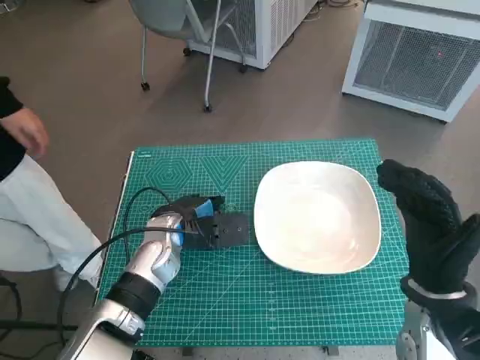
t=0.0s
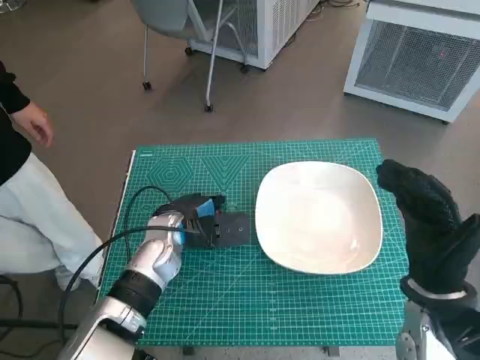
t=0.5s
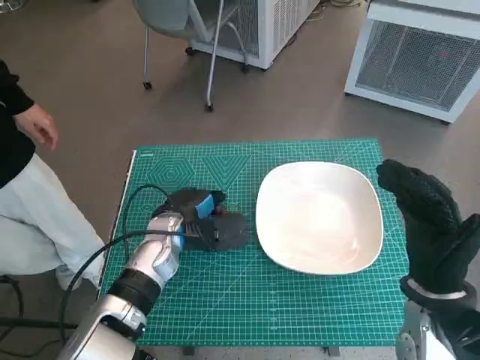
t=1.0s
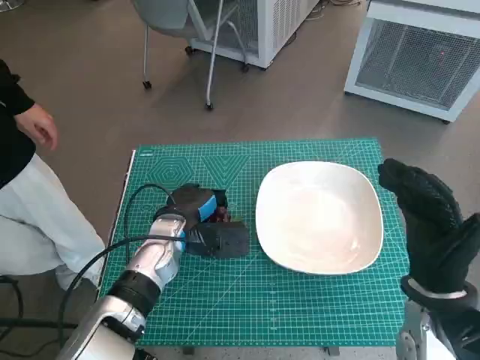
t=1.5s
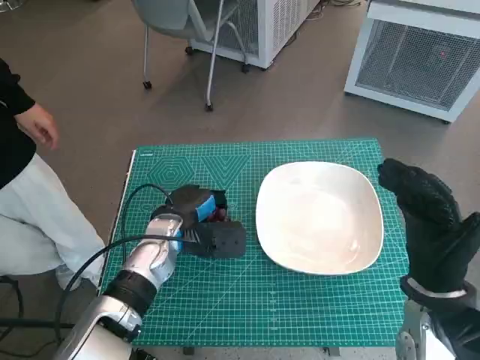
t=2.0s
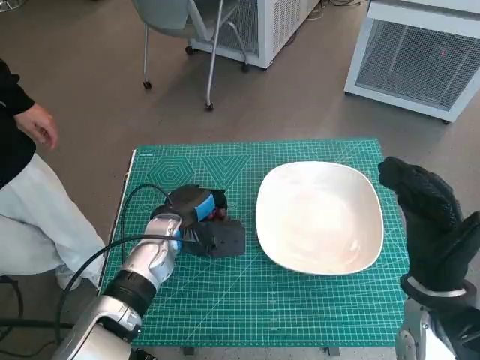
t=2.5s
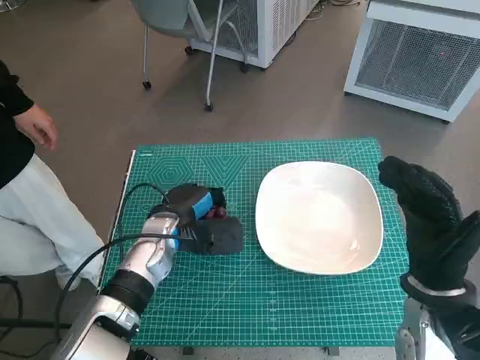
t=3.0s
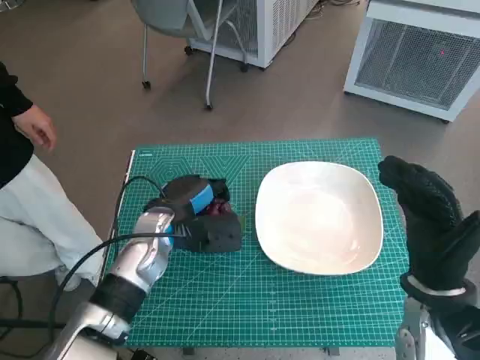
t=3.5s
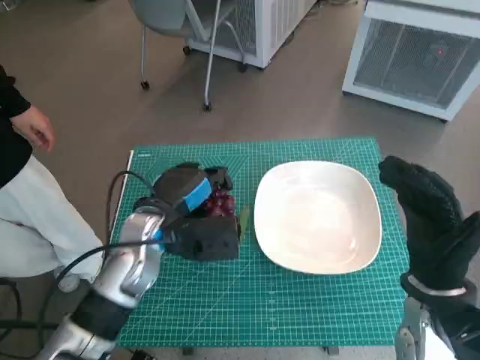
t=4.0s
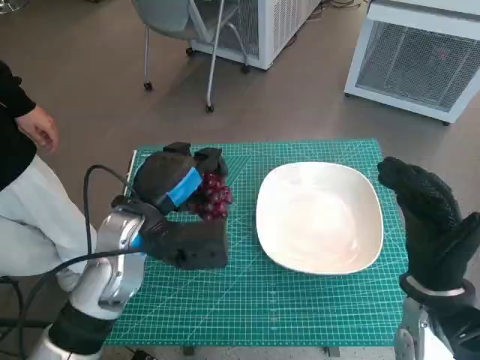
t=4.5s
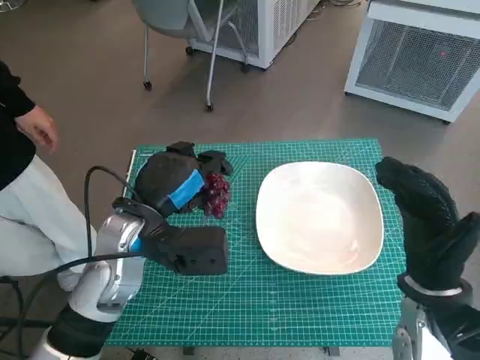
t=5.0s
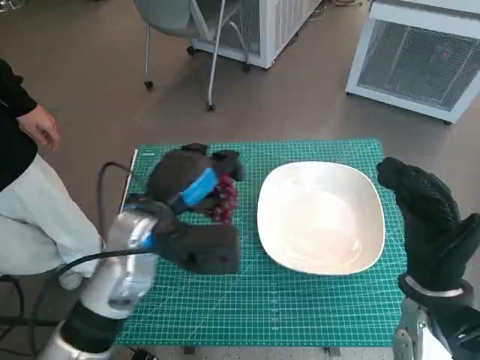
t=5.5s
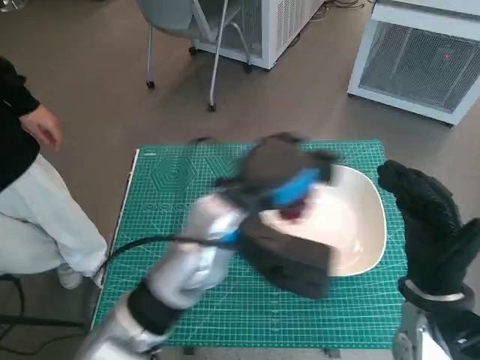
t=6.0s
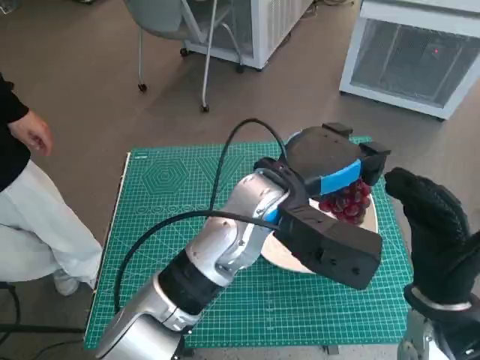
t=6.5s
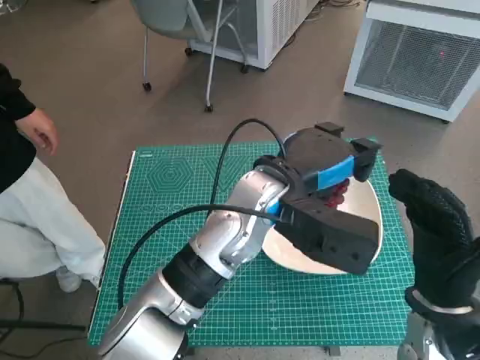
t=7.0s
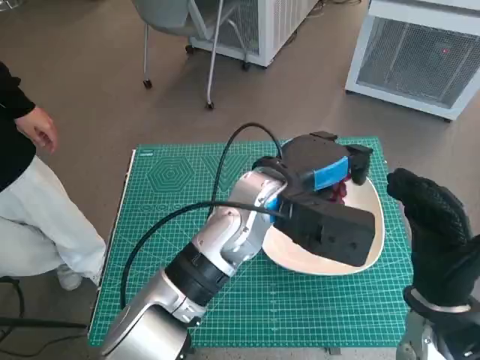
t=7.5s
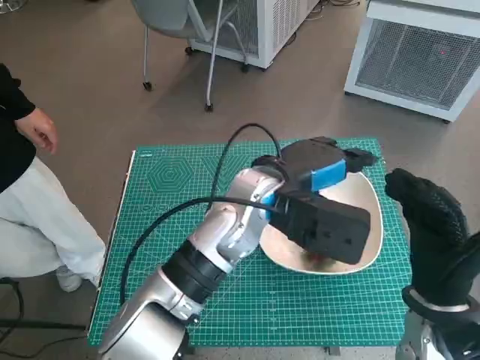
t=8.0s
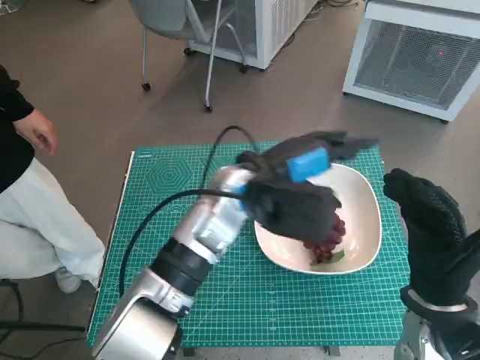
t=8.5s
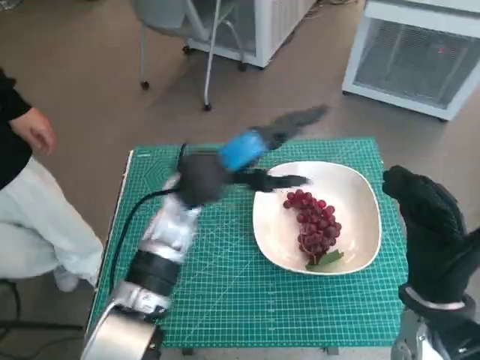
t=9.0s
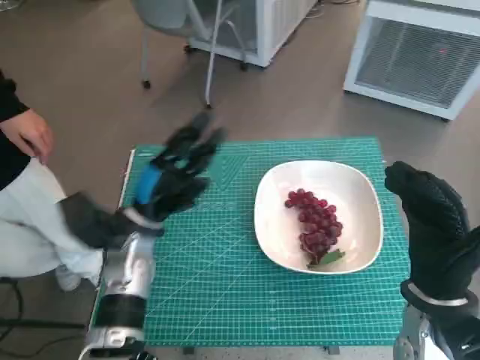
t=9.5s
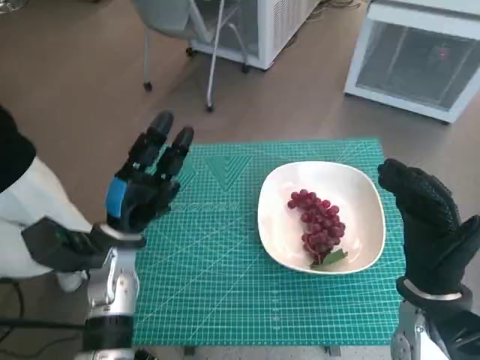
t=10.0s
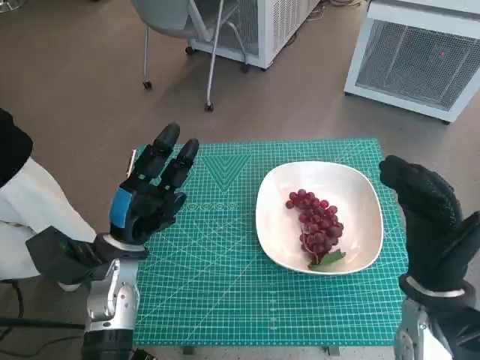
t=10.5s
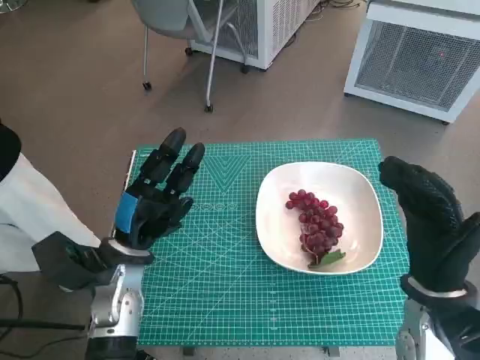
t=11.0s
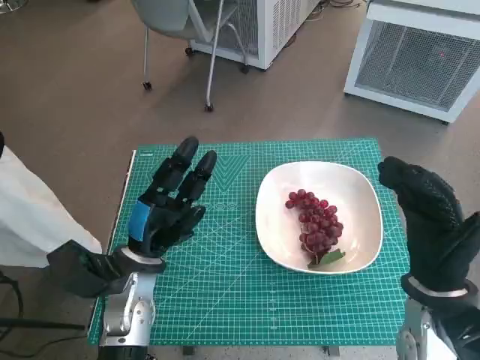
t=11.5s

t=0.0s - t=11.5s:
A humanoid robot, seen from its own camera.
Task of the whole recording: Pick up the grapes and put them on the plate.
Step, t=2.0s - t=8.0s: Place the grapes in the plate with left hand.
t=0.0s - t=2.0s: There are only small adjustments of the hands.
t=2.0s - t=4.0s: The left hand goes roughly 5 cm upward.
t=4.0s - t=6.0s: The left hand heads to the right and upward, covering approximately 15 cm.
t=6.0s - t=7.5s: The left hand moves approximately 5 cm.
t=7.5s - t=9.5s: The left hand heads to the left and downward, covering approximately 20 cm.
t=9.5s - t=11.5s: The left hand moves approximately 5 cm.
